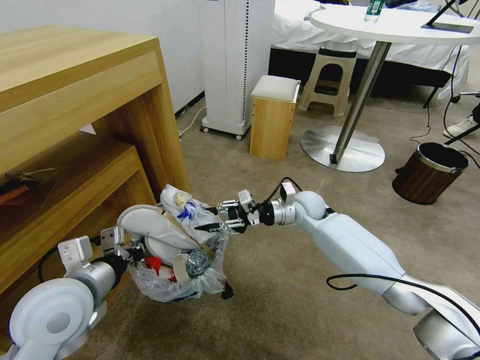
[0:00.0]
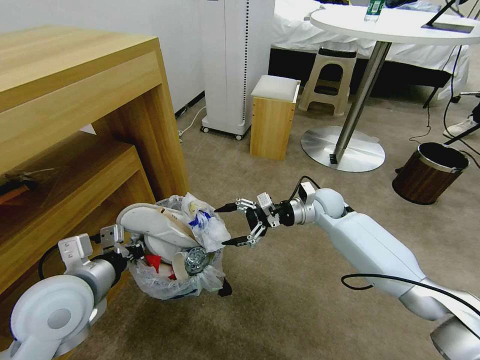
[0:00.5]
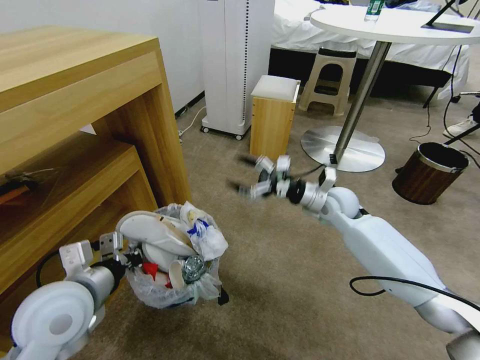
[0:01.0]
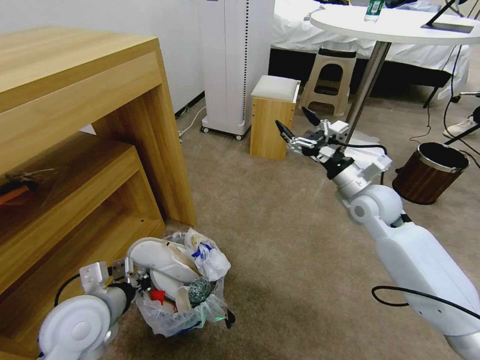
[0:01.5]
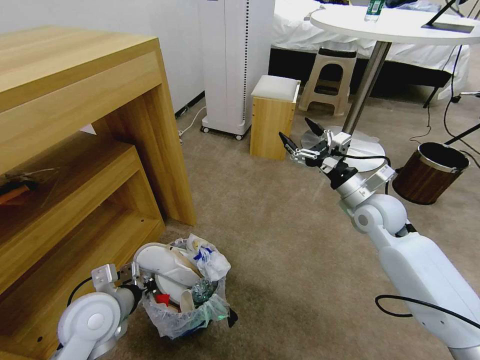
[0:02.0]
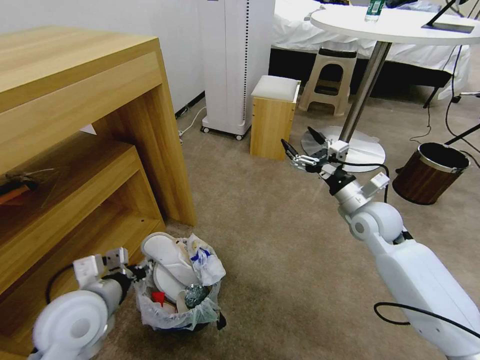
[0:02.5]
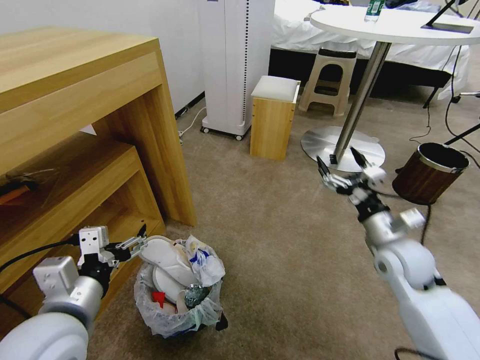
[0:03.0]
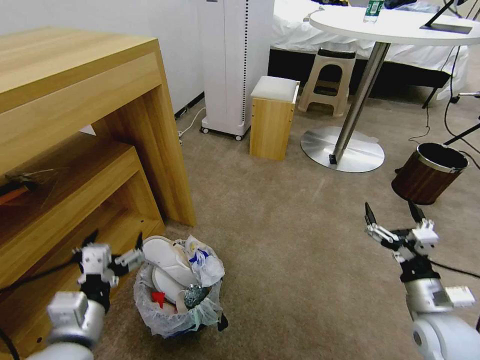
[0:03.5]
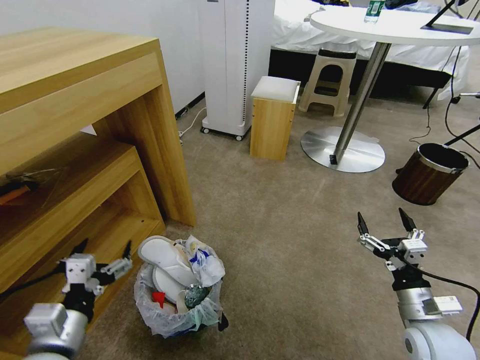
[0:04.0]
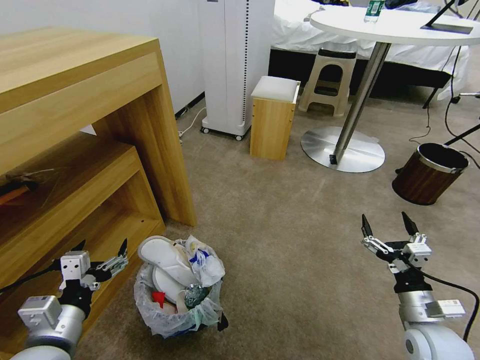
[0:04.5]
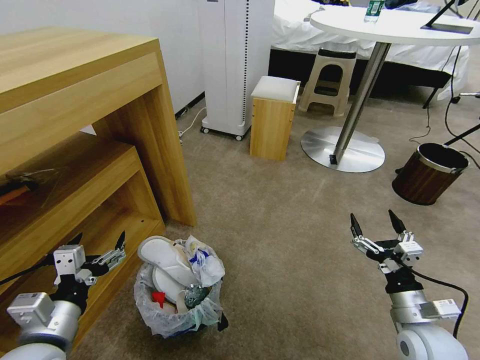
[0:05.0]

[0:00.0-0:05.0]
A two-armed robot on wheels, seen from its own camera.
Task of the whole recording: Pick up the trash bin and place the garbage on the floor into it.
0:00.0 to 0:02.5: The left gripper moves downward, approximately 5 cm, and opens its fingers; the right gripper is displaced to the right, backward and upward by about 15 cm, and opens its fingers.
0:02.5 to 0:05.0: The left gripper travels backward by some 10 cm, and opens its fingers. Meanwhile the right gripper is displaced backward and downward by roughly 25 cm.

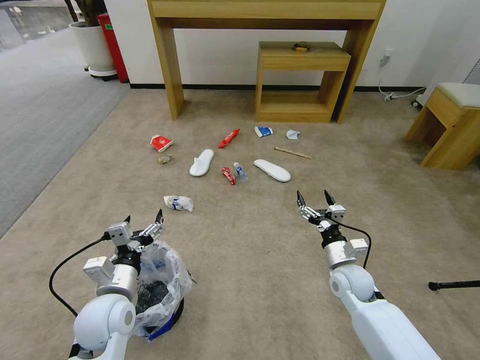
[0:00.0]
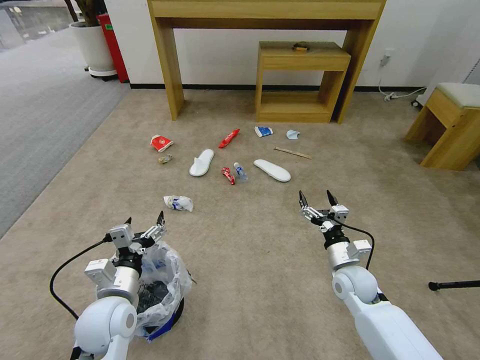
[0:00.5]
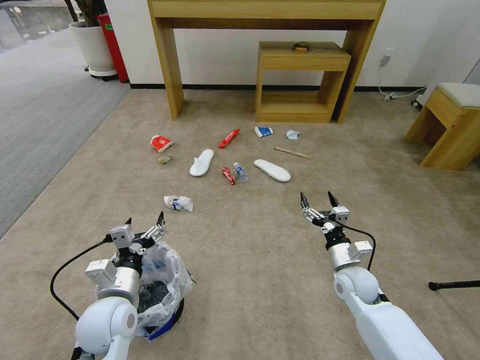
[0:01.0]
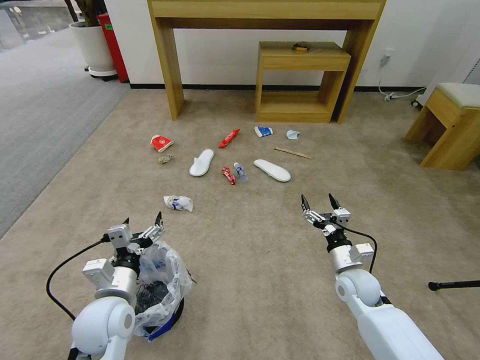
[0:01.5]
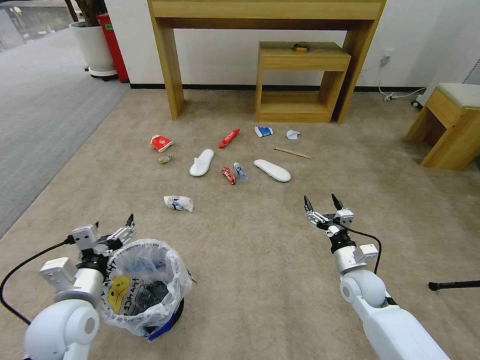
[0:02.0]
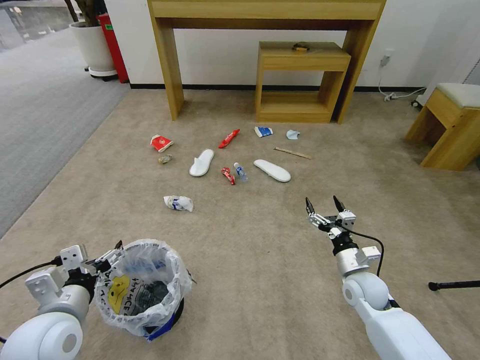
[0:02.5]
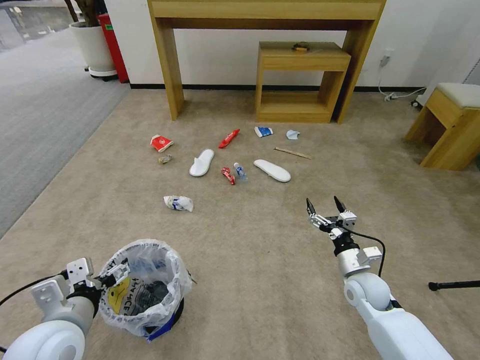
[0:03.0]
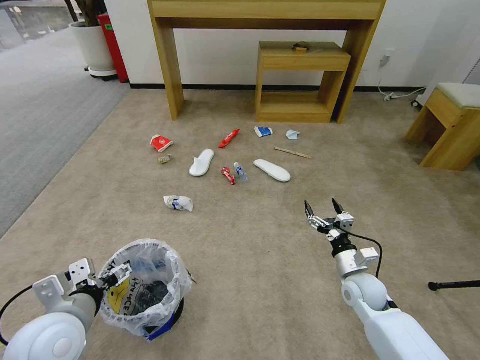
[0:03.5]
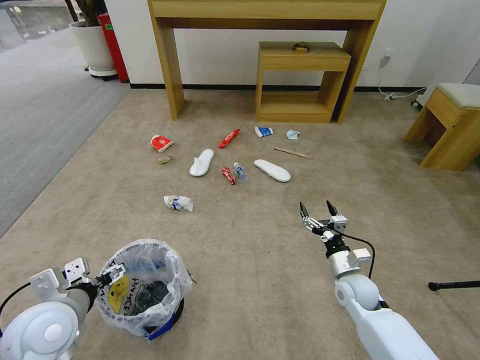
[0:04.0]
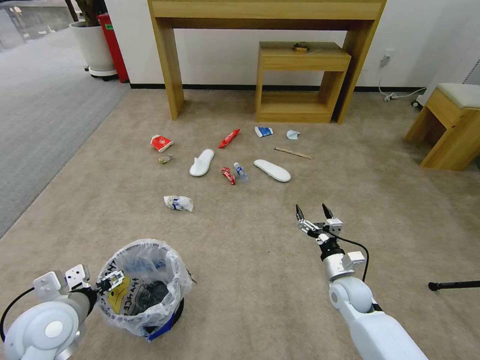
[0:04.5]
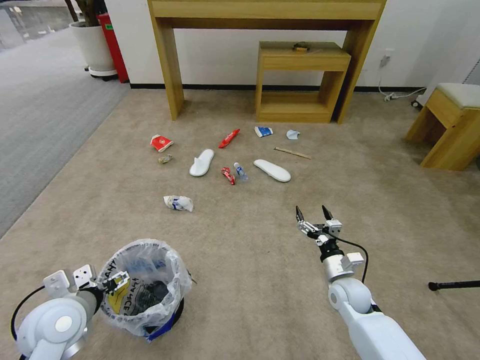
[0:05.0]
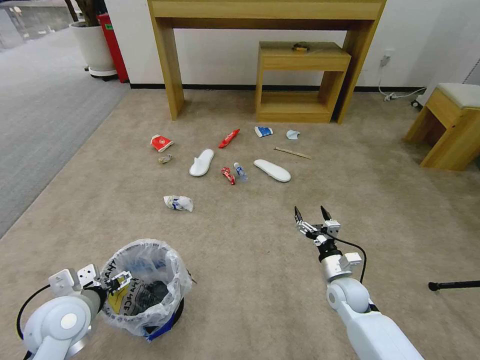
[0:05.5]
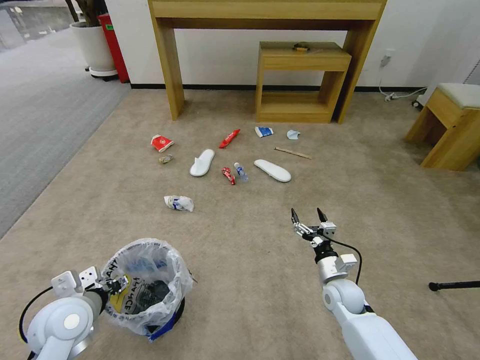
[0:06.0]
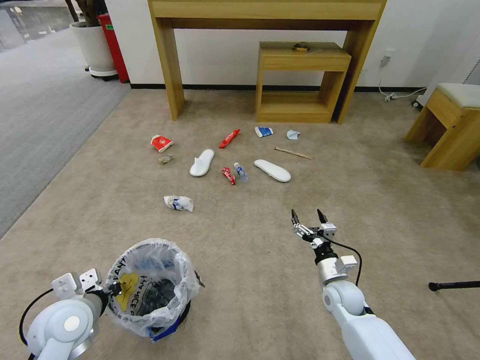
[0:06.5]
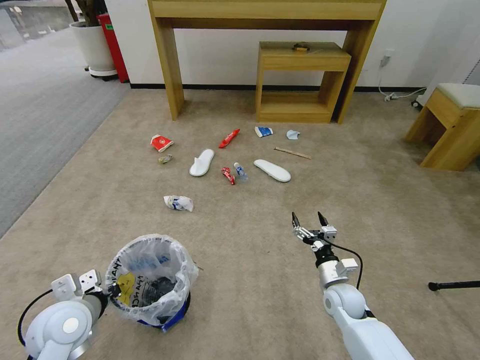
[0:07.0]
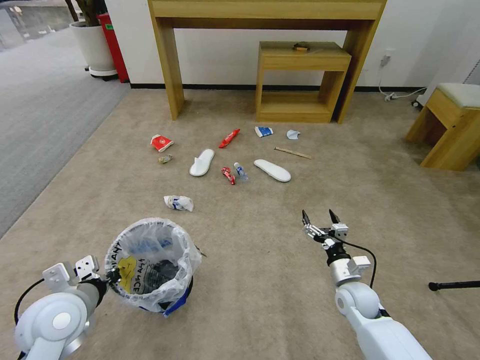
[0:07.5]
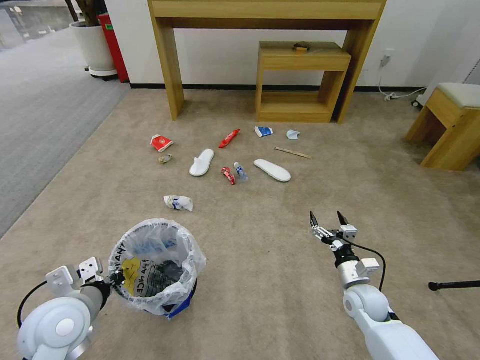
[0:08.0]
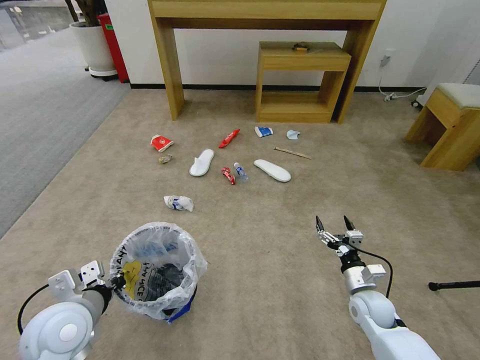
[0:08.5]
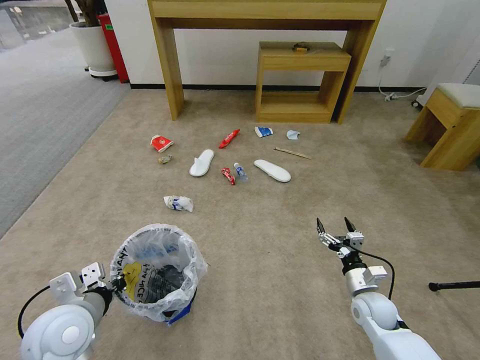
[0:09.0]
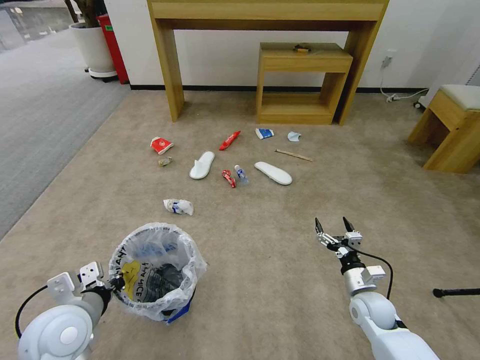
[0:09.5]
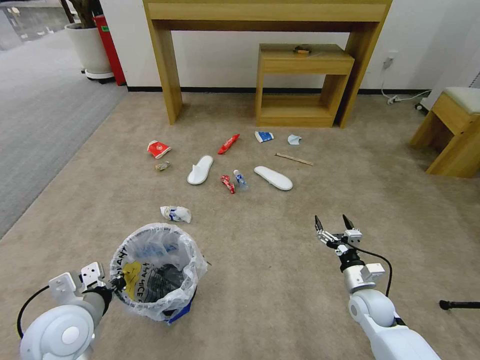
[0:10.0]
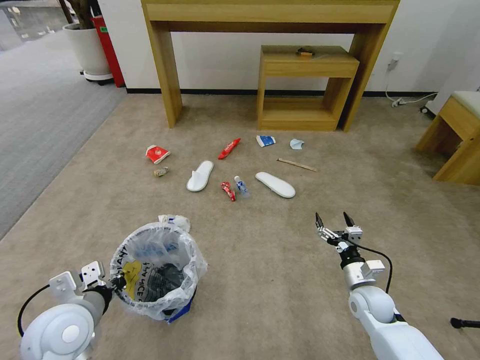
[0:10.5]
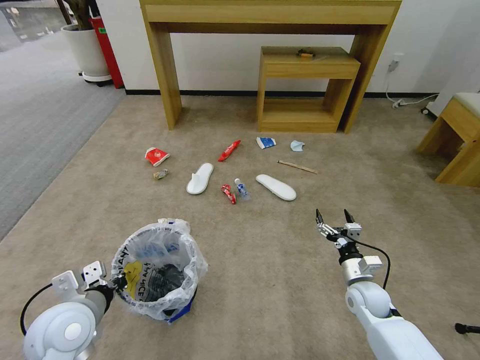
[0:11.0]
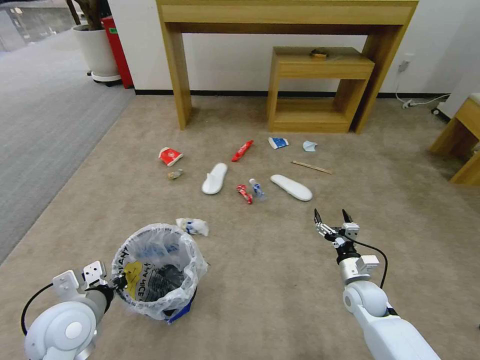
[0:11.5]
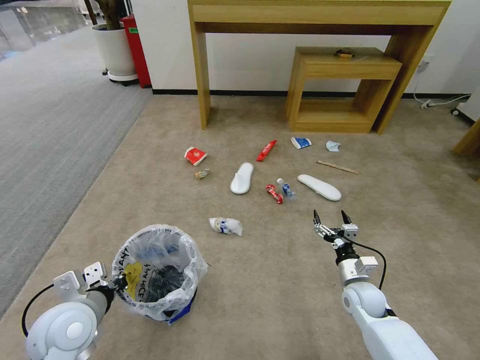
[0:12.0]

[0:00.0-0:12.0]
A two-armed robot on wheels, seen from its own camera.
Task of the whole recording: Pick up the trash bin and place the garbage on the floor into it.
0:04.0 to 0:06.0: The left gripper moves about 5 cm, and closes up.
0:06.0 to 0:08.0: The right gripper changes place by approximately 5 cm. The left gripper closes its fingers.
0:08.0 to 0:10.0: The grippers make only small movements.

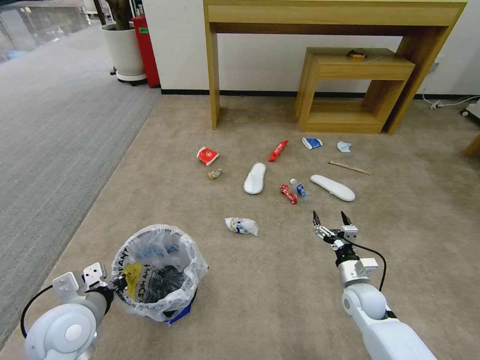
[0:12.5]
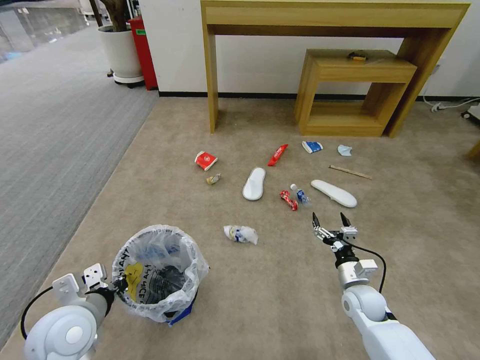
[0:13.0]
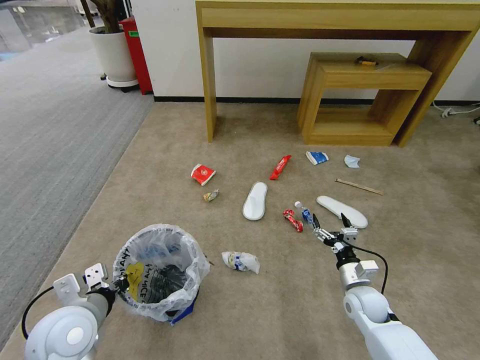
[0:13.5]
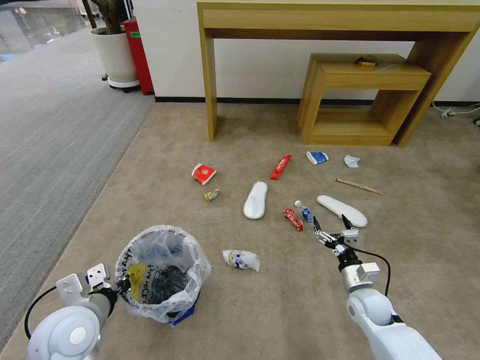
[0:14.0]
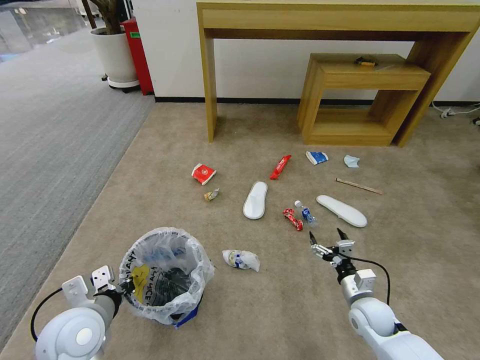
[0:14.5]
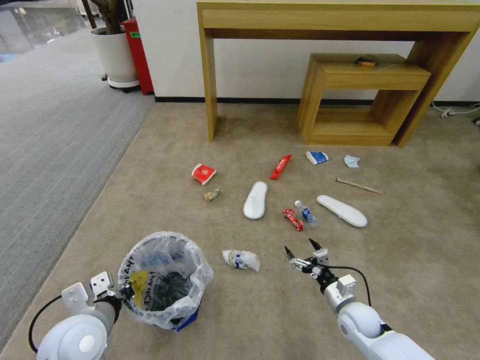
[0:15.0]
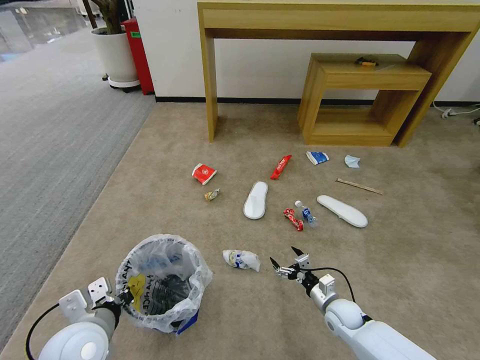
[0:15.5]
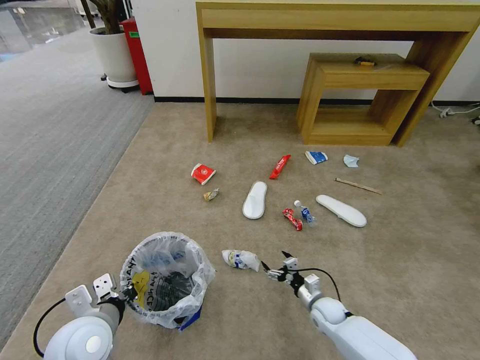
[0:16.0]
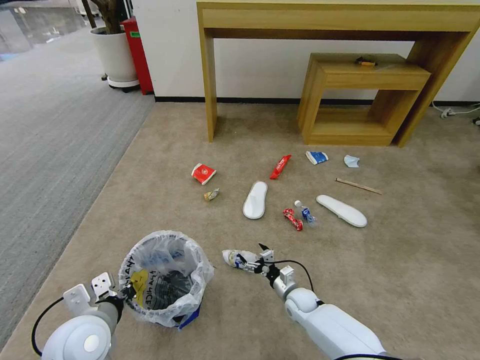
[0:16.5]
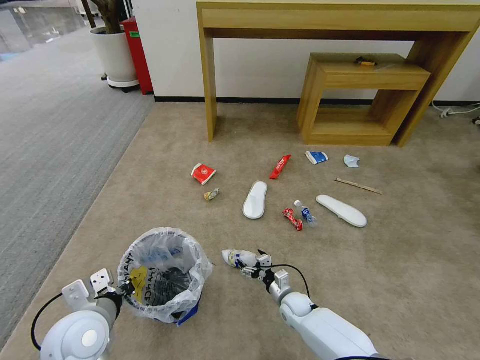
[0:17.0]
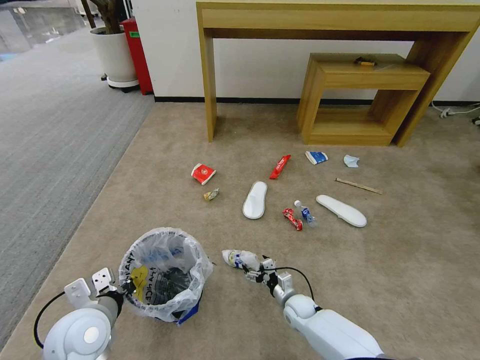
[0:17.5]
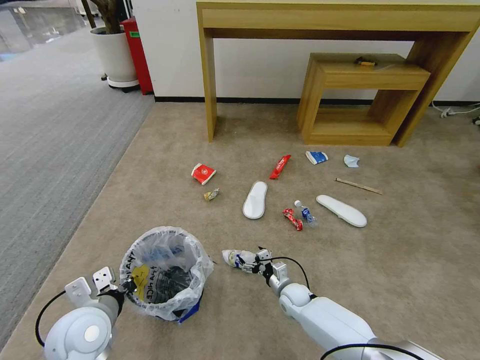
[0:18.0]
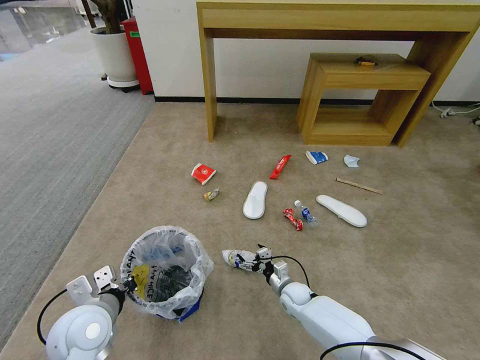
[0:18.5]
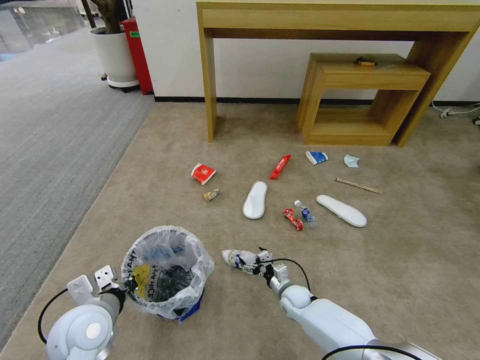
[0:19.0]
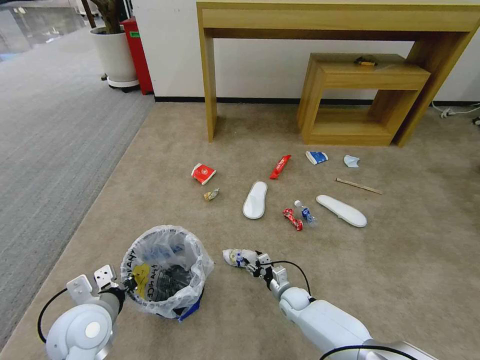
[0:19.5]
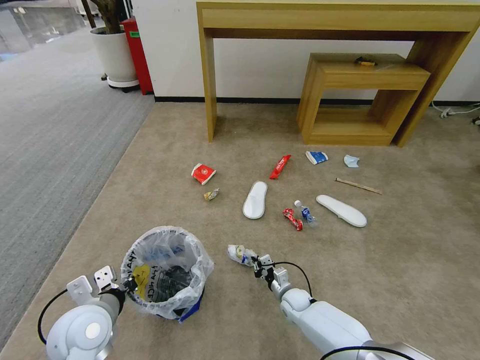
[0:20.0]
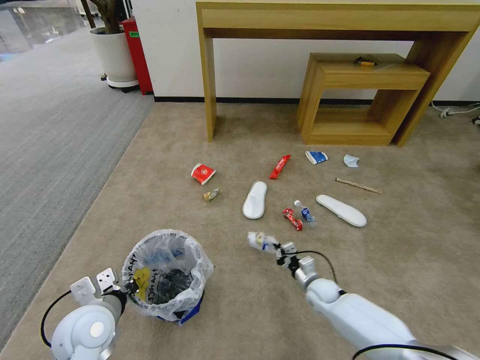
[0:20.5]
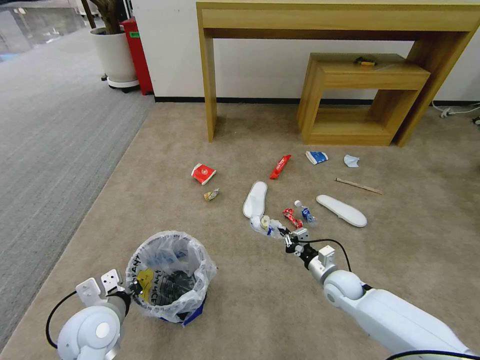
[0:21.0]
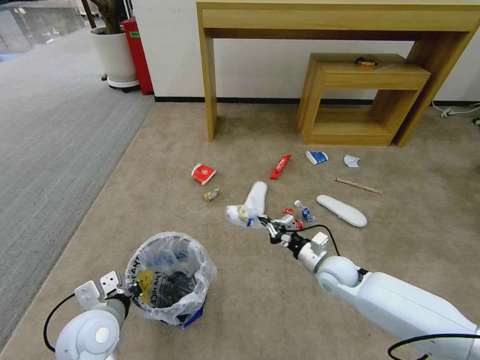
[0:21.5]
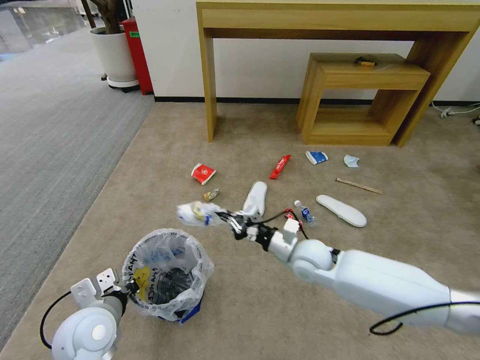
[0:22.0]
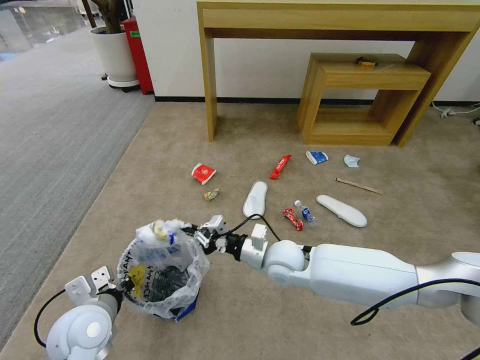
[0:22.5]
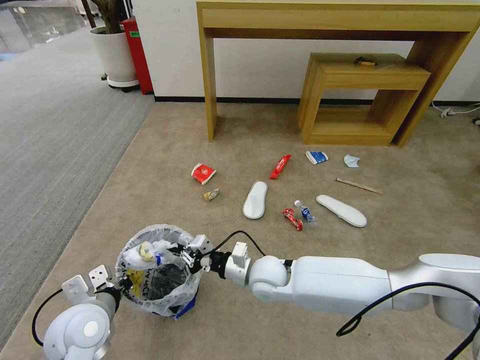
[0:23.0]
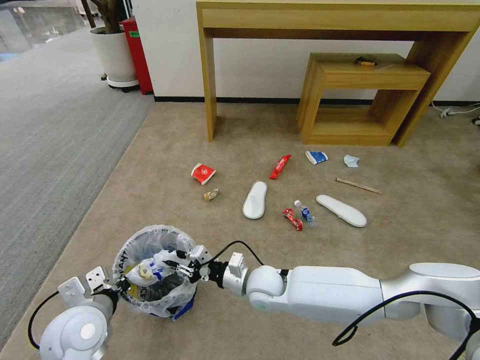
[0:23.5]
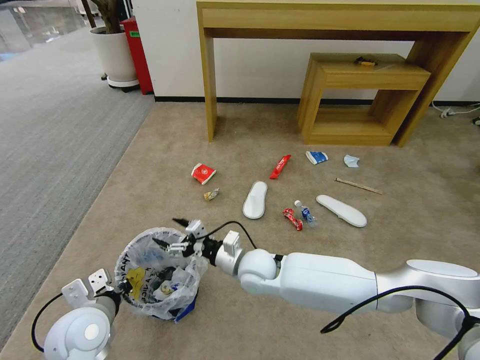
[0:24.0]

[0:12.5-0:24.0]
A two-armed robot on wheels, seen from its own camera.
Task of the whole recording: Pick up the trash bin and place the garbage on the floor into it.
0:14.5 to 0:16.5: The right gripper is displaced to the left, downward and forward by some 20 cm.
0:16.5 to 0:18.5: The grippers move only a little.
0:18.5 to 0:20.0: The right gripper closes up.
0:20.0 to 0:22.0: The right gripper is displaced upward by roughly 25 cm.
0:22.0 to 0:24.0: The right gripper heads to the left, covering approximately 15 cm, and opens.
